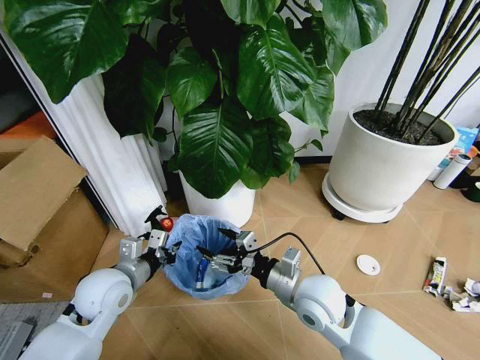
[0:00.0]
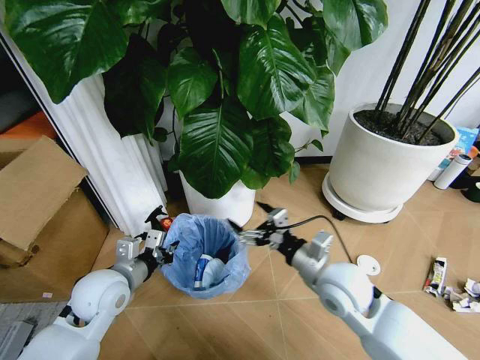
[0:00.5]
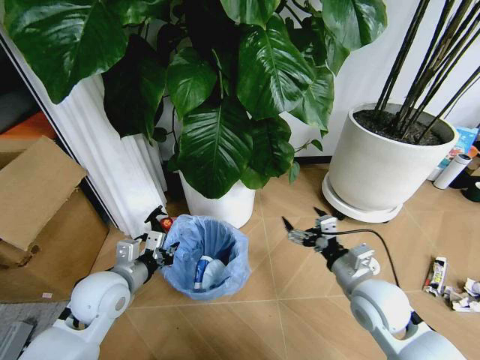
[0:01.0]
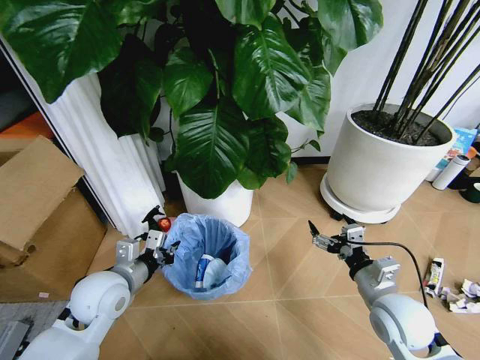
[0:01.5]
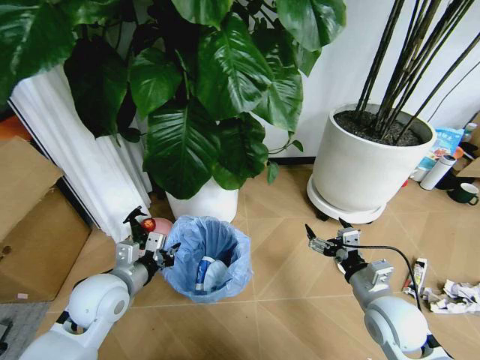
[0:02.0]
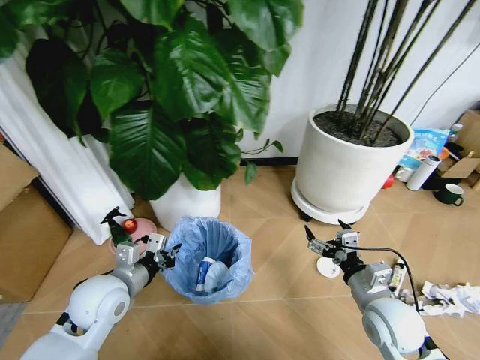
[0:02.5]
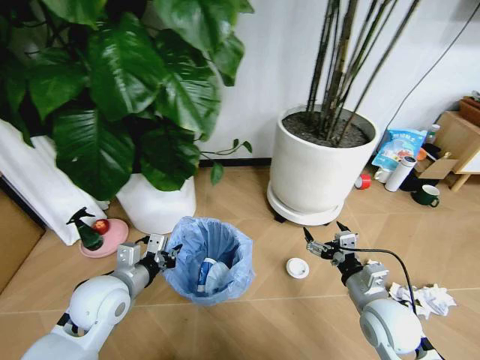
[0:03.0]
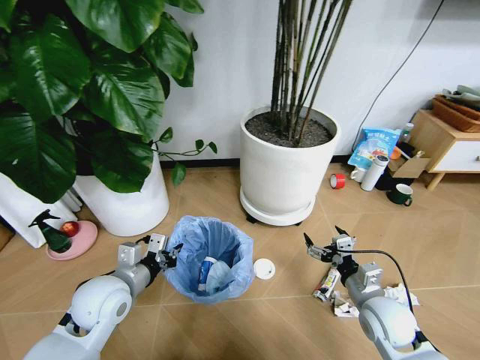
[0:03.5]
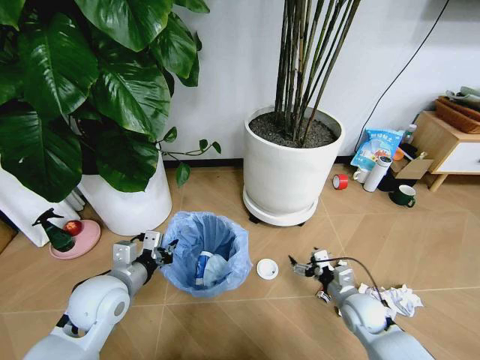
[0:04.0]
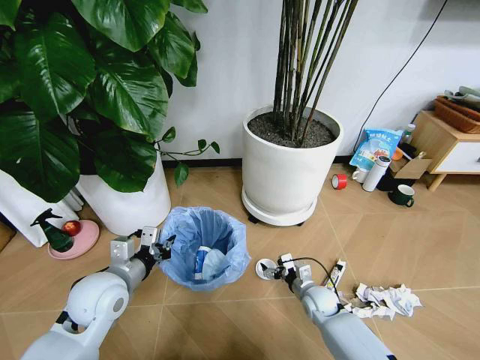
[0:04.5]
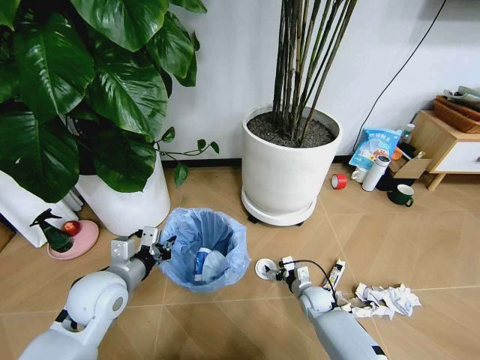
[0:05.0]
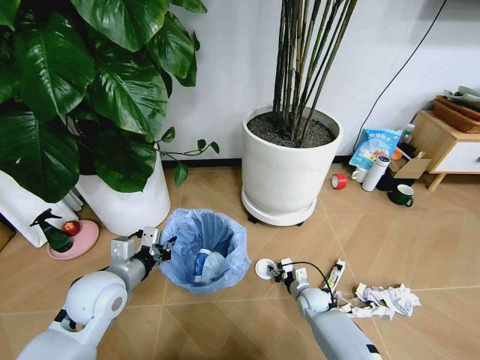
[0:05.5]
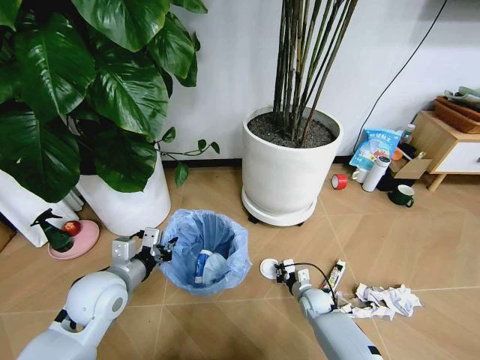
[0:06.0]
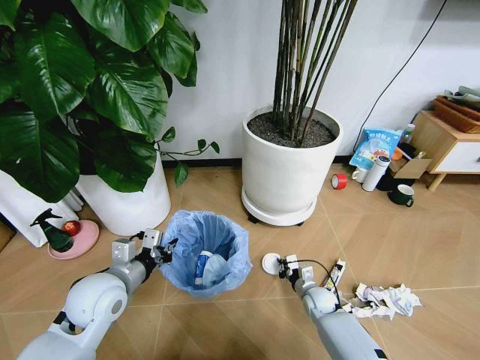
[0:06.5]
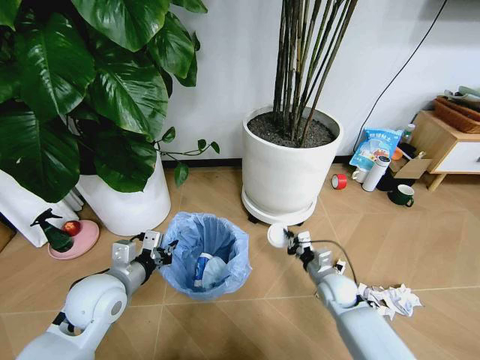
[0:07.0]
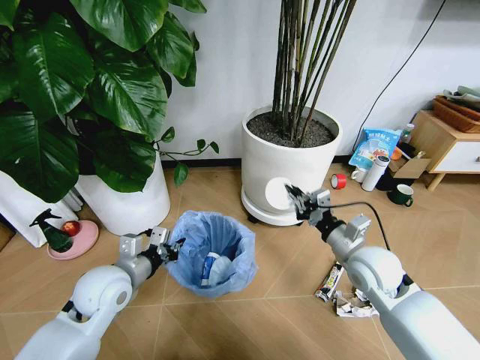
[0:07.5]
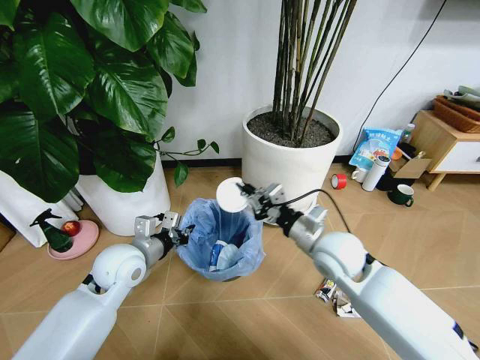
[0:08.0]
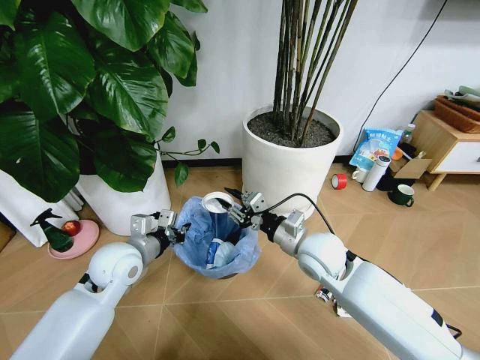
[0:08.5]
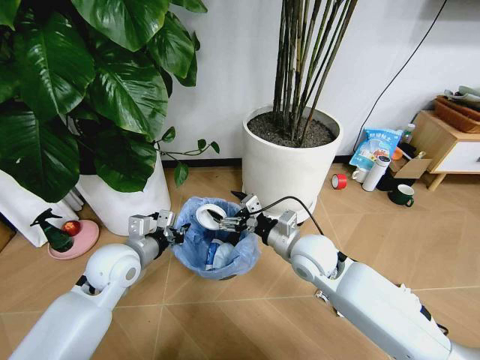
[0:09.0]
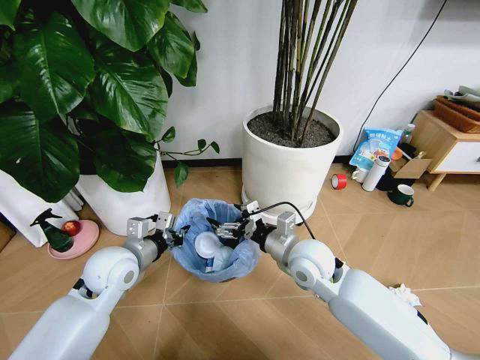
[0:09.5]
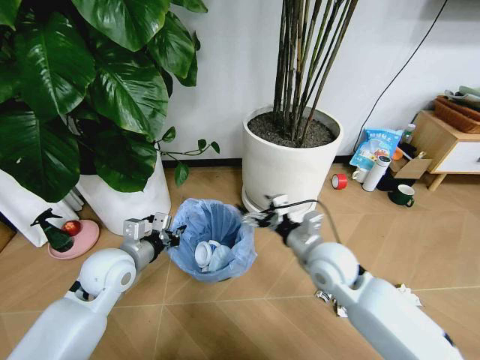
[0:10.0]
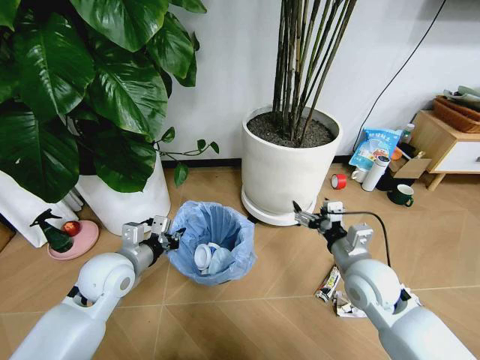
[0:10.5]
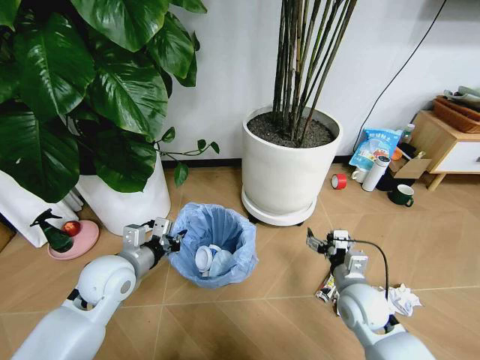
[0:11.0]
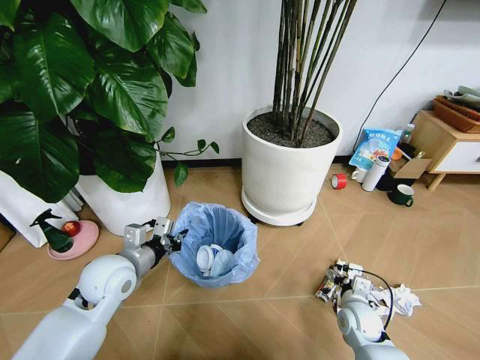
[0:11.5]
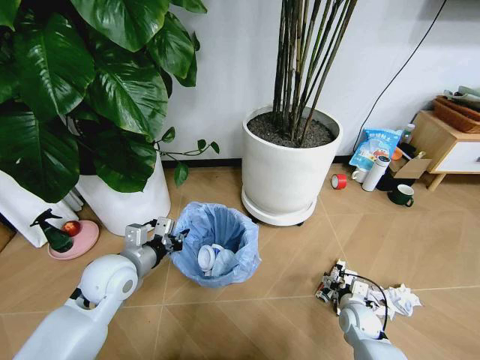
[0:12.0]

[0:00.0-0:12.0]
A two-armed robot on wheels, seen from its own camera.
Task of the whole recording: Pick up the trash bin and place the garbage on the floor into it.
0:00.0 to 0:02.0: The right gripper travels to the right by about 15 cm.
0:02.0 to 0:04.0: The right gripper goes about 15 cm downward and forward.
0:04.0 to 0:06.0: The right gripper goes approximately 15 cm downward, to the left and forward, and closes up.
0:06.0 to 0:08.0: The right gripper is displaced upward by approximately 35 cm. Meanwhile the left gripper moves forward, roughly 5 cm.
0:08.0 to 0:10.0: The right gripper opens its fingers.
0:10.0 to 0:12.0: The right gripper is displaced downward and to the right by about 30 cm.

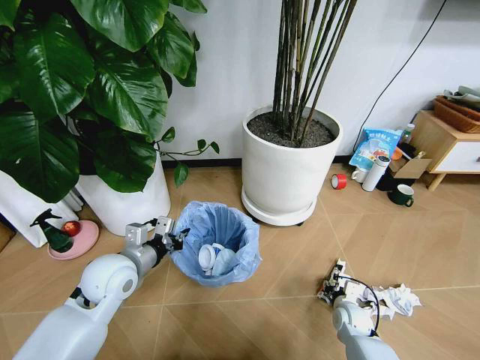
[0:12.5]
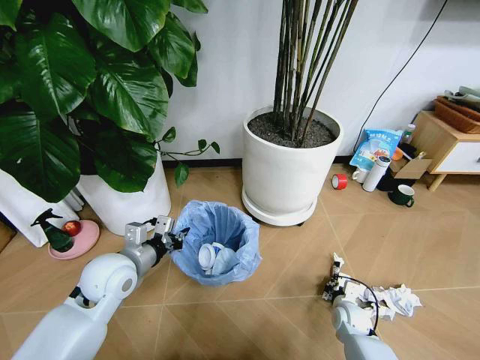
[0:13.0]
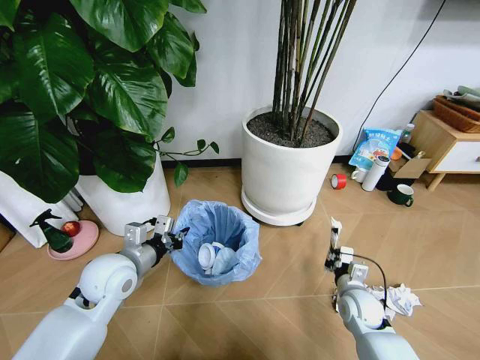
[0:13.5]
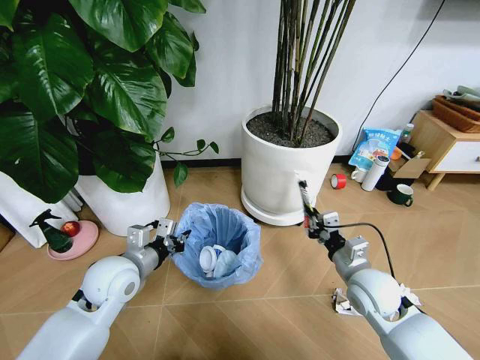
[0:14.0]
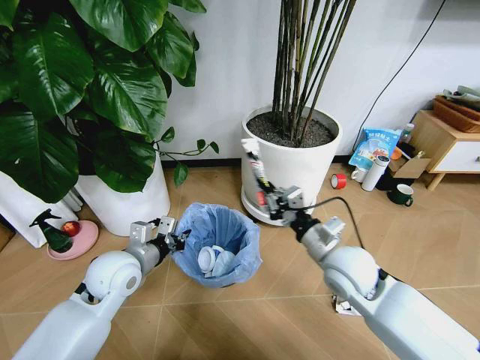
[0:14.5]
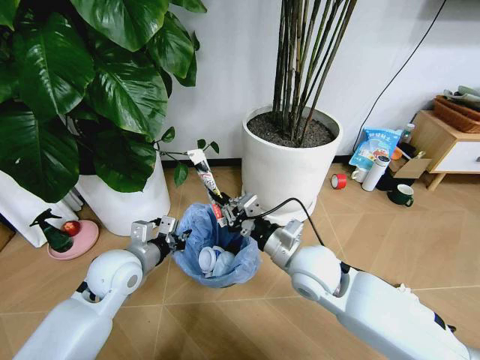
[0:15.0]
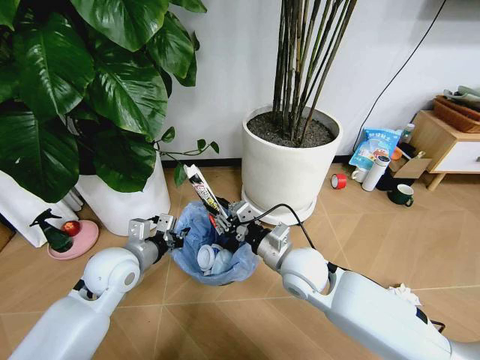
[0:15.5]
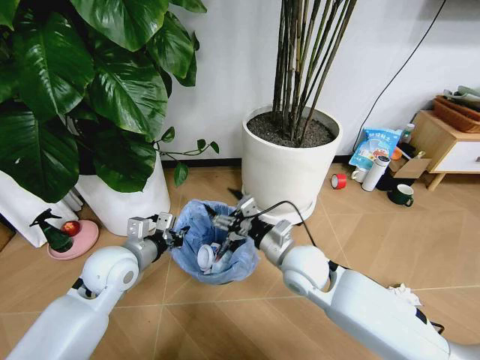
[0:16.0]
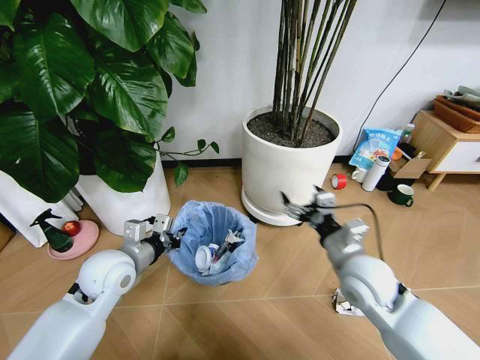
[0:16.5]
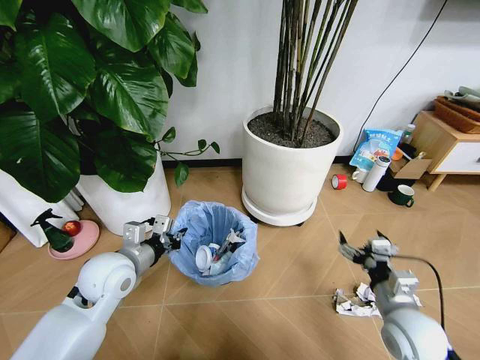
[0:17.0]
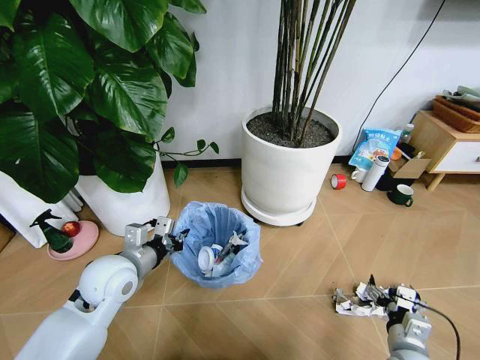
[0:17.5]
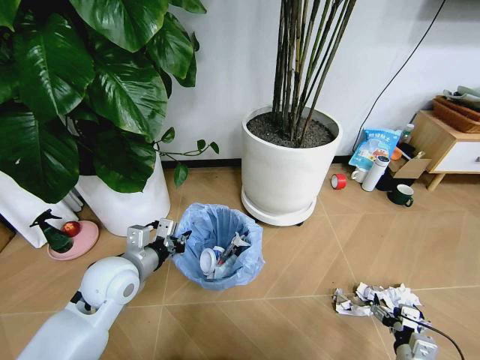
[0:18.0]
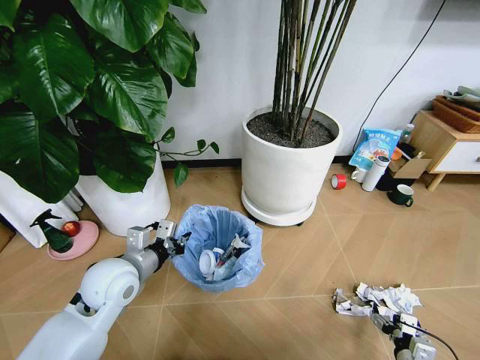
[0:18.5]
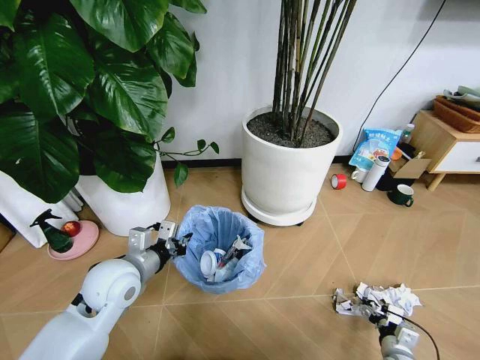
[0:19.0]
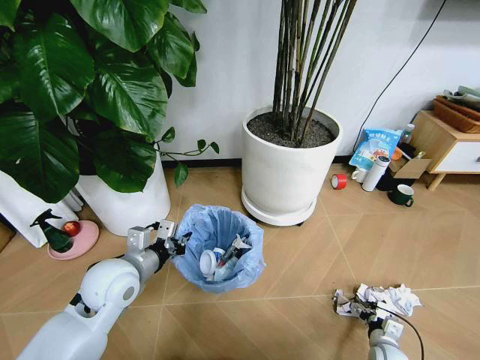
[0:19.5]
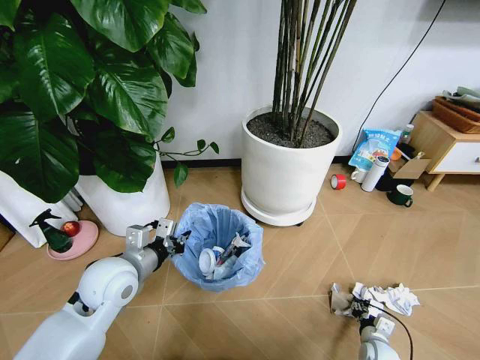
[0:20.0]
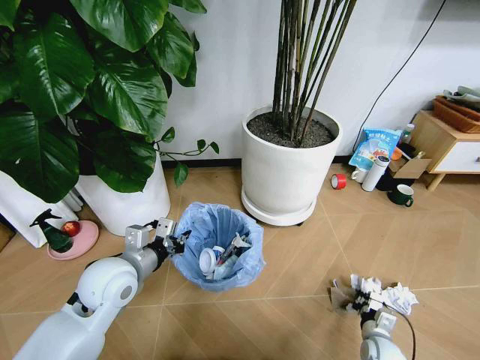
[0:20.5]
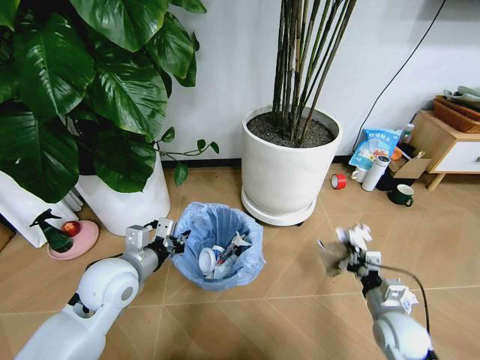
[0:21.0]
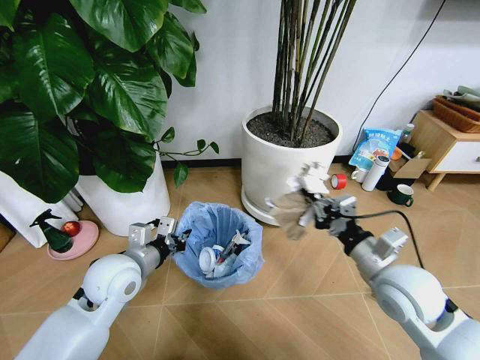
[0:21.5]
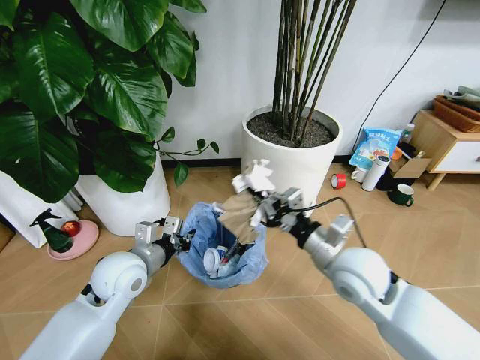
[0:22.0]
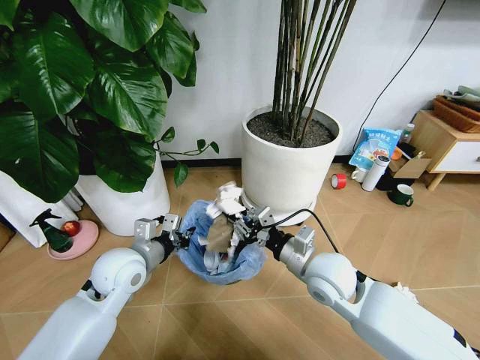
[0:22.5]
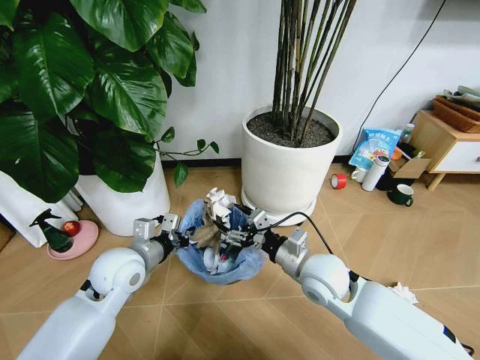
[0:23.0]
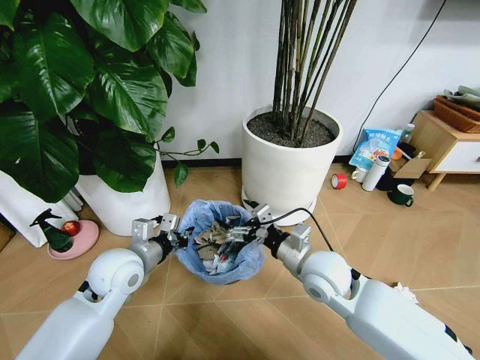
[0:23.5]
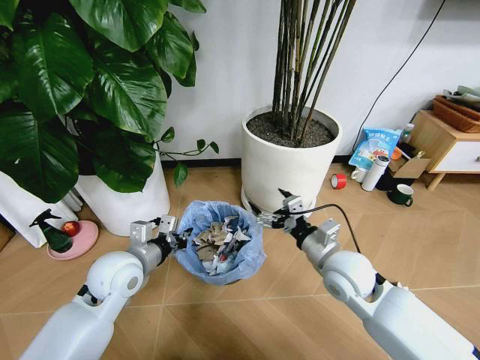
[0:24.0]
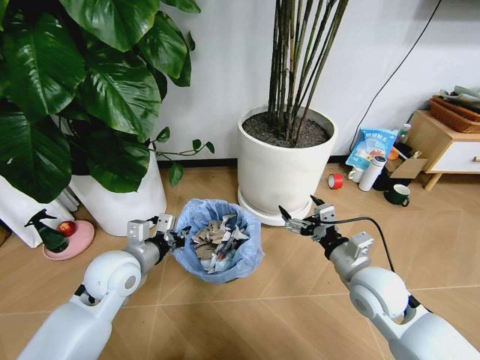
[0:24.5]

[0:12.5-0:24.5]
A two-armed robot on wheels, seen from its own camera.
Task of the whole recording: Pick up the trash bin and place the garbage on the floor into it.
0:12.5 to 0:14.5: The right gripper heads upward, covering approximately 30 cm, and closes up.
0:14.5 to 0:16.5: The right gripper reaches about 10 cm to the left, then returns, and opens up.
0:16.5 to 0:18.5: The right gripper moves downward, to the right and backward, some 35 cm.
0:18.5 to 0:20.5: The right gripper heads forward, covering some 10 cm, and closes its fingers.
0:20.5 to 0:22.5: The right gripper travels upward and to the left by about 35 cm.
0:22.5 to 0:24.5: The right gripper travels to the right by approximately 10 cm, and opens up.

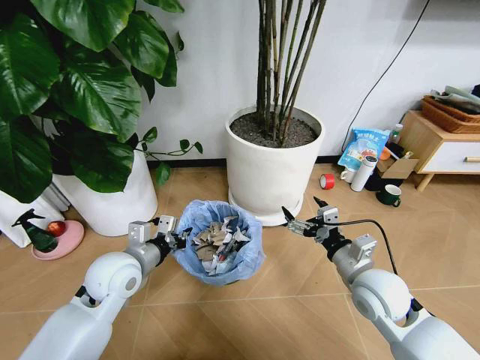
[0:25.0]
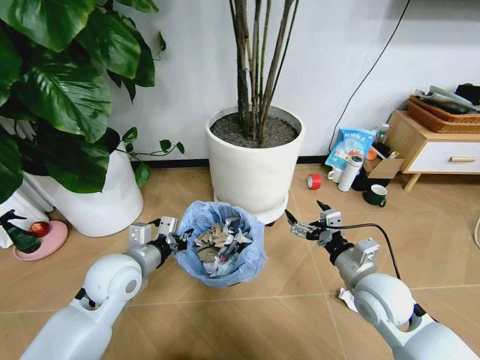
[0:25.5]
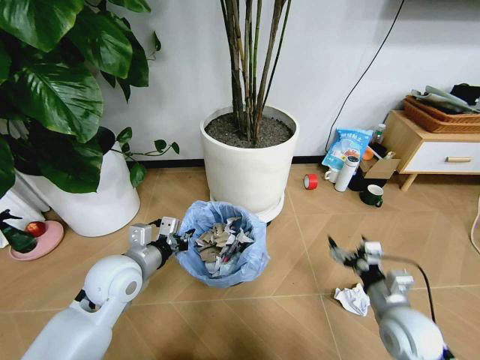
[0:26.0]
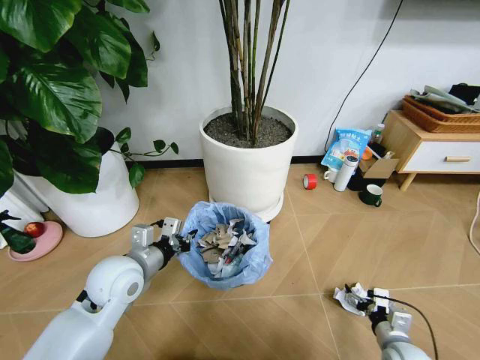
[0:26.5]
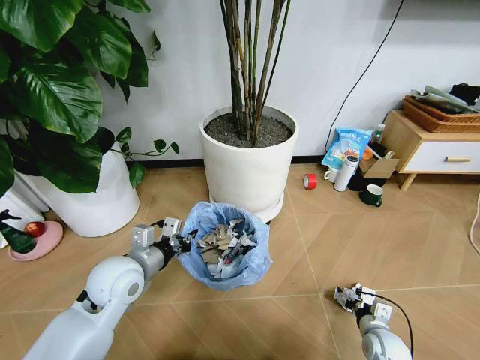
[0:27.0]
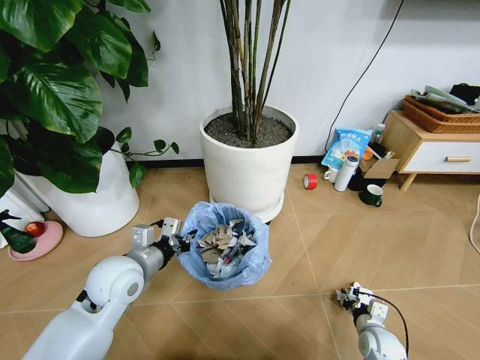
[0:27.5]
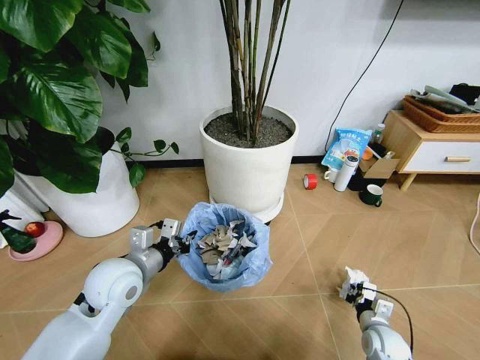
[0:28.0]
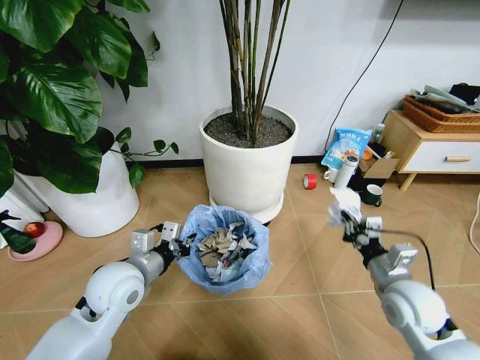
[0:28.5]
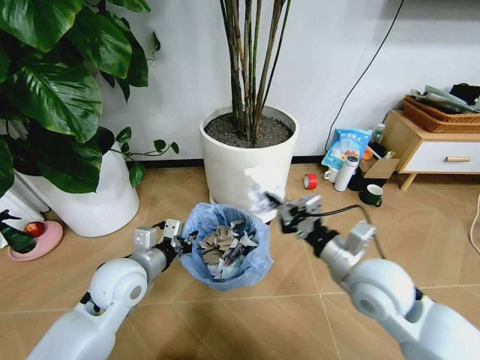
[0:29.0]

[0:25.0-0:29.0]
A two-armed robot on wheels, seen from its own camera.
Task of the whole recording: Pick up the trash bin and place the garbage on the floor into it.
0:25.0 to 0:27.0: The right gripper shifts approximately 25 cm downward.
0:27.0 to 0:29.0: The right gripper moves upward and to the left, about 30 cm, and closes up.
